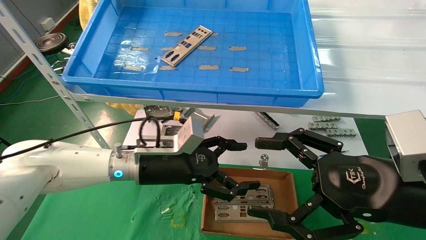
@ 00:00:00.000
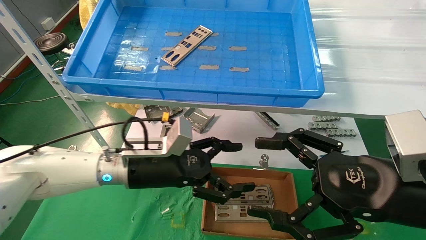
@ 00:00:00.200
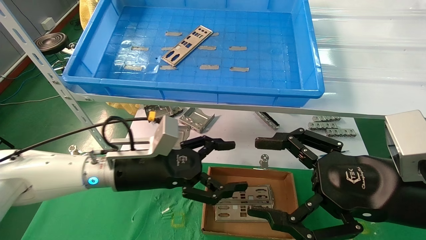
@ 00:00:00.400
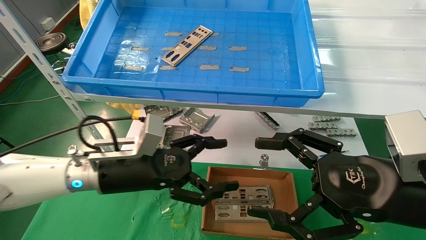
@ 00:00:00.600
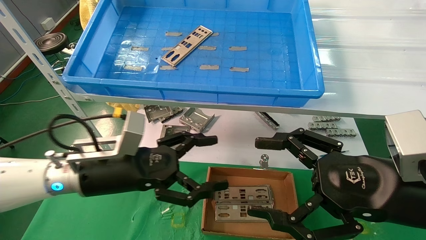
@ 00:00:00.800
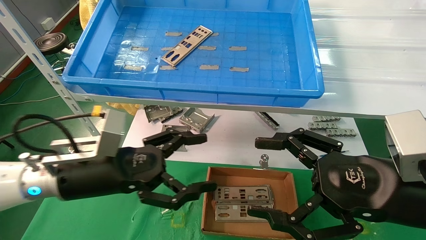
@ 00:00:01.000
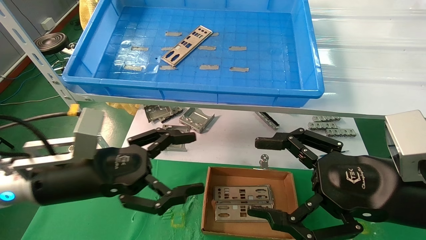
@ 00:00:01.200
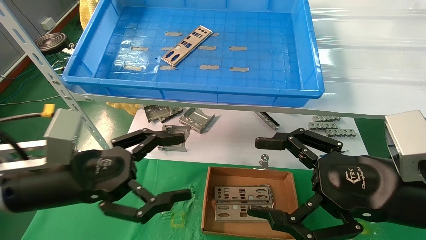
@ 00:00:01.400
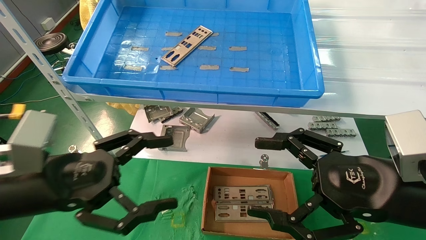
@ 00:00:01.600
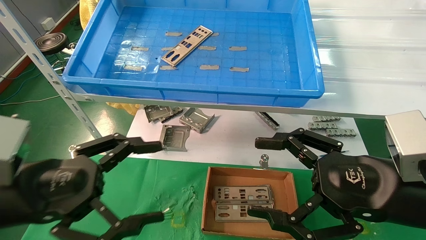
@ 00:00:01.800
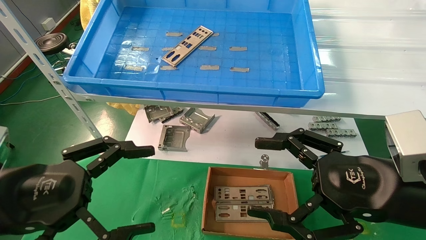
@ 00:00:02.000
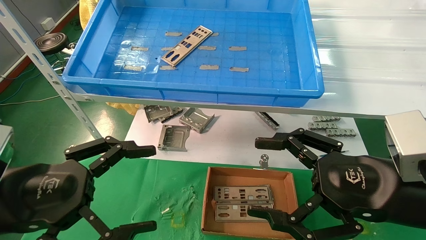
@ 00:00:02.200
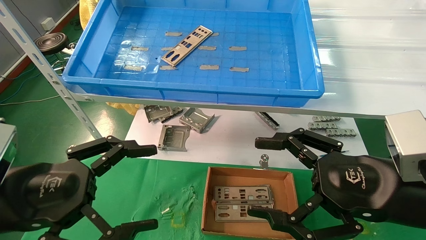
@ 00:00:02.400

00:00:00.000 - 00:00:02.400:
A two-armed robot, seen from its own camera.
Task of the whole recording: pick up the parts on the tray and put them in the cardboard box.
00:00:00.000 - 00:00:01.200: The left gripper travels to the left and backward by roughly 15 cm.
00:00:01.200 - 00:00:02.400: The left gripper shifts about 10 cm backward.
